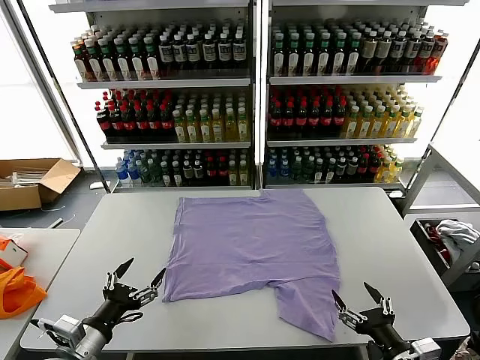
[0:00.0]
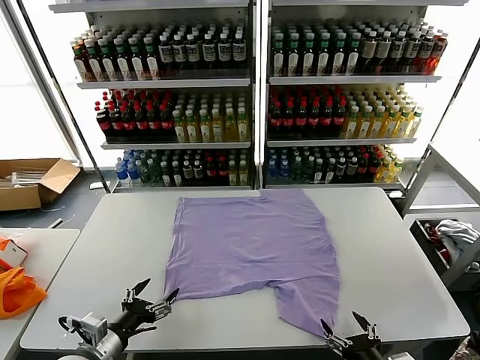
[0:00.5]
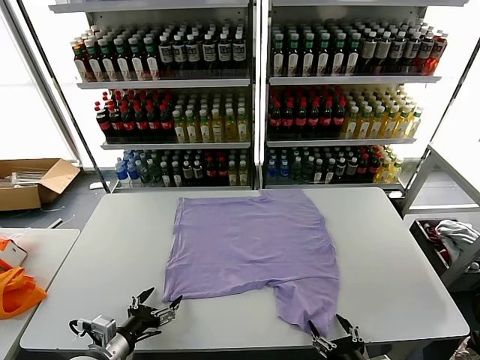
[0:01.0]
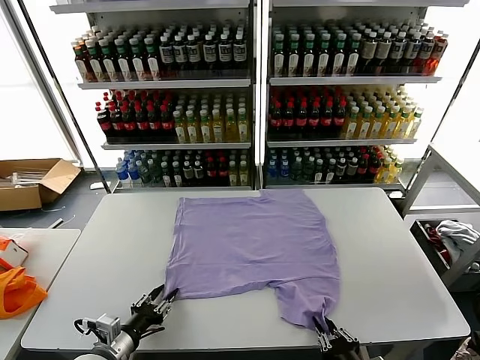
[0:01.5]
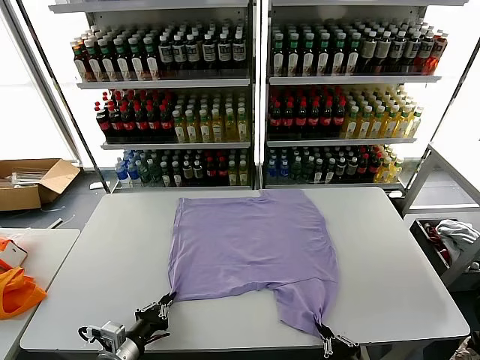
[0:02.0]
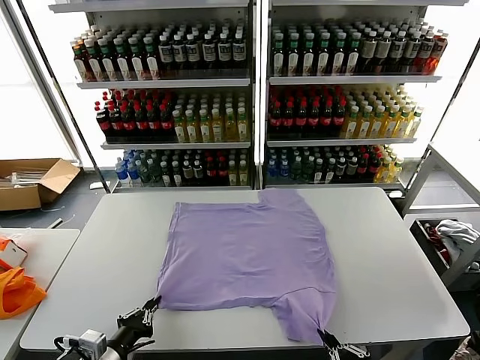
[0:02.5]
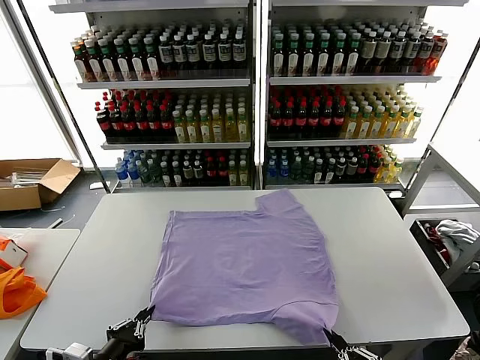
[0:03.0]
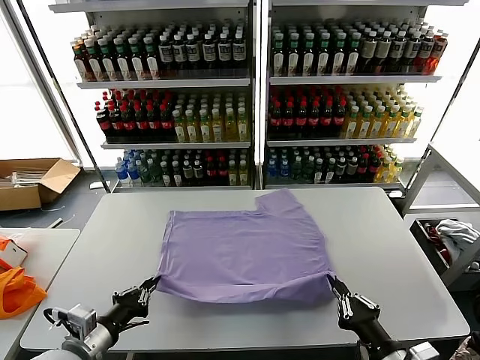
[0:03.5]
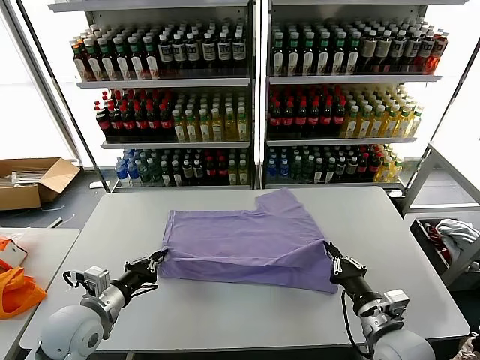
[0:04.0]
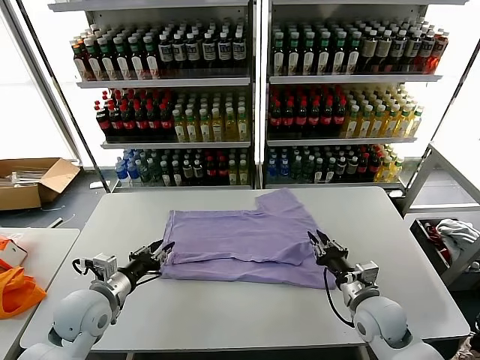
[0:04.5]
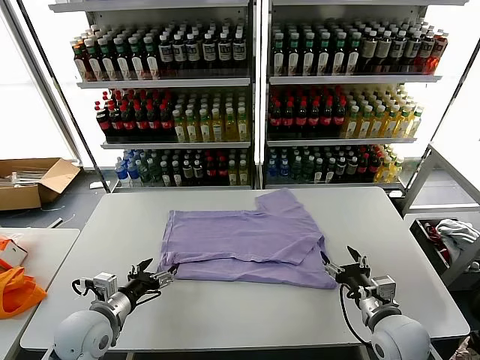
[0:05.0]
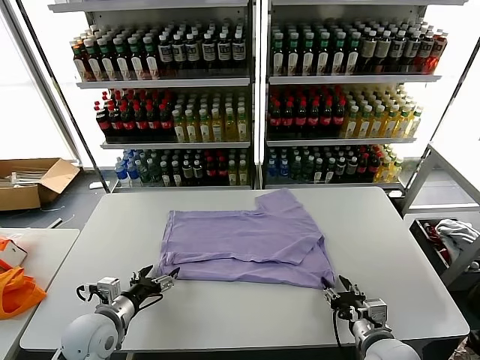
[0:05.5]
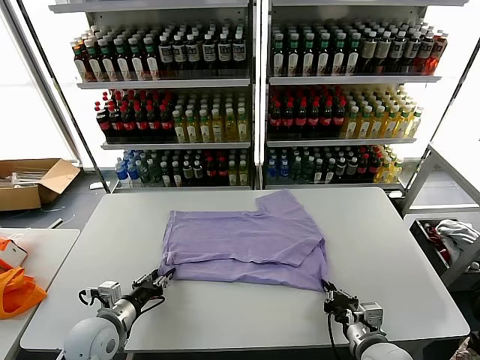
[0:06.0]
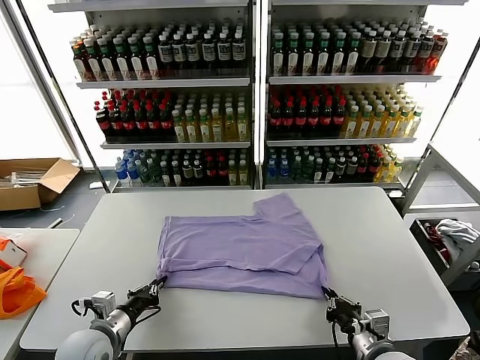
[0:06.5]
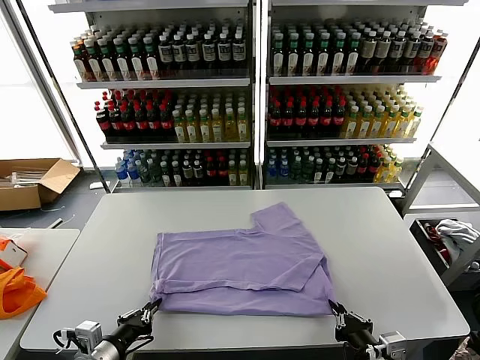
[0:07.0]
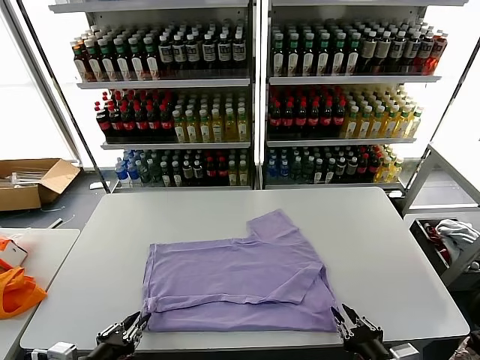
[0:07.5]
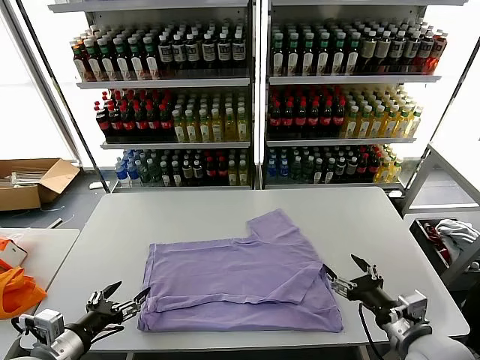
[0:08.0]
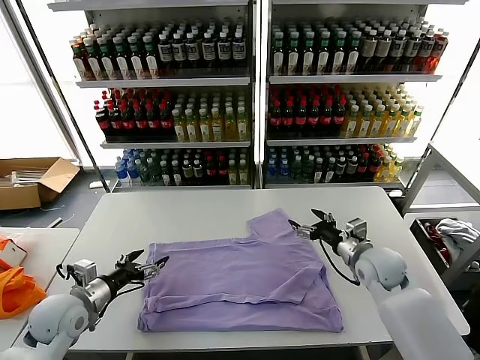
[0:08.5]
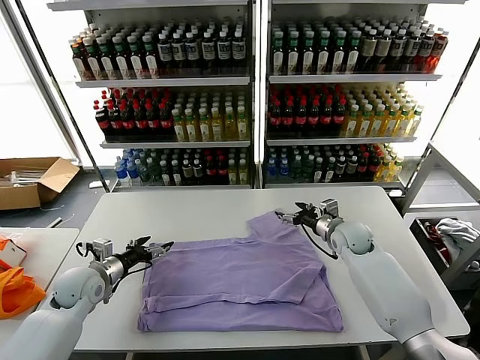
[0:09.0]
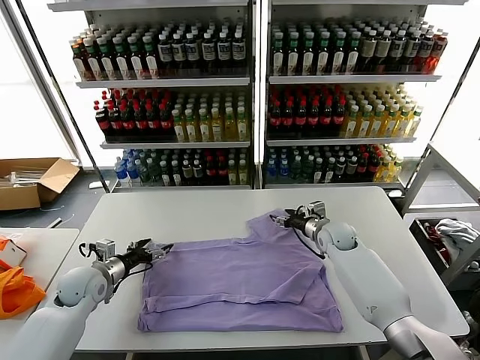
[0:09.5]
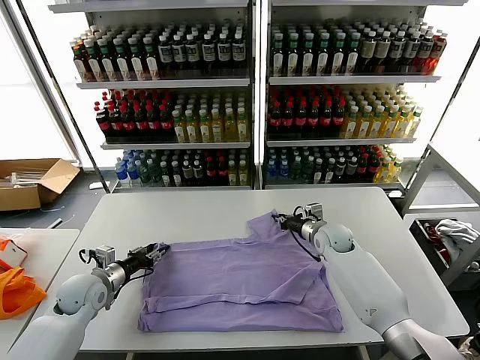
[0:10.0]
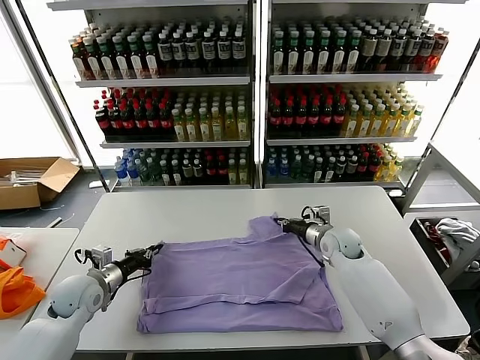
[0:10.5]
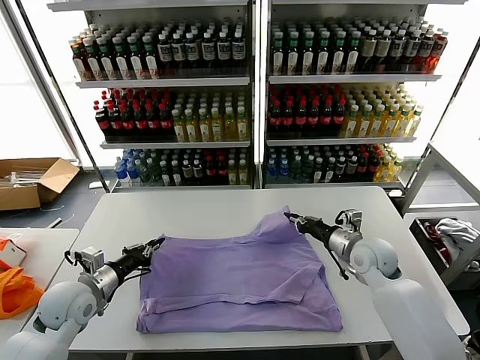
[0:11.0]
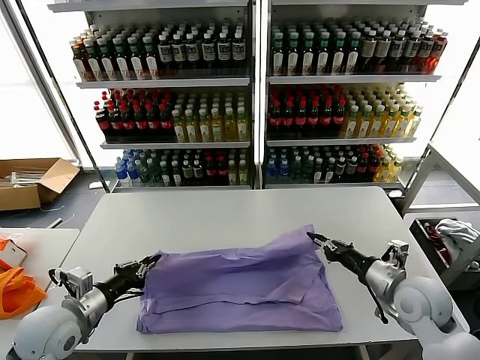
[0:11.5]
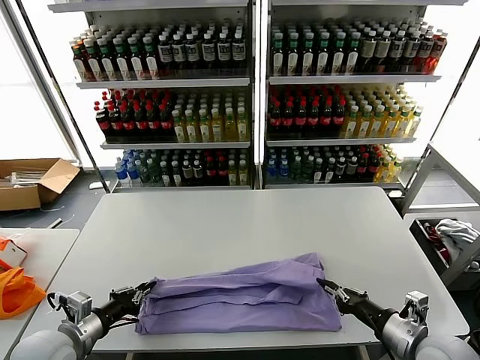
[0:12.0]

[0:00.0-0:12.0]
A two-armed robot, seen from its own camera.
Task of the whole recording: fold and organize the clothes.
Step, 0:00.0 to 0:02.0: use both grippers simultaneously to clamp the lower edge of the clothing fabric.
Step, 0:02.5 to 0:04.0: use both grippers to drag the lower edge of the fabric forward and fold it over the upper edge.
Step, 0:05.0 to 0:07.5: Drag the clothes downward with both gripper.
Step, 0:08.0 to 0:10.0: use both grippers simultaneously to clamp the upper edge of the clothing fabric.
0:02.0 to 0:04.0: The left gripper shifts about 10 cm upward and forward; the right gripper goes approximately 15 cm forward.
0:04.0 to 0:06.0: The left gripper travels downward by roughly 5 cm, and opens, then closes again. The right gripper opens, then closes once more.
0:06.0 to 0:08.0: The right gripper goes some 10 cm upward and to the right, travels backward and back again, roughly 10 cm each way, and opens up; the left gripper travels backward and upward by about 15 cm, and opens up.
0:08.0 to 0:10.0: The left gripper moves forward and downward, some 20 cm, and closes up, while the right gripper travels forward by approximately 30 cm, and closes up.
0:10.0 to 0:12.0: The left gripper moves backward, some 15 cm, and closes its fingers. The right gripper is displaced backward by some 30 cm.

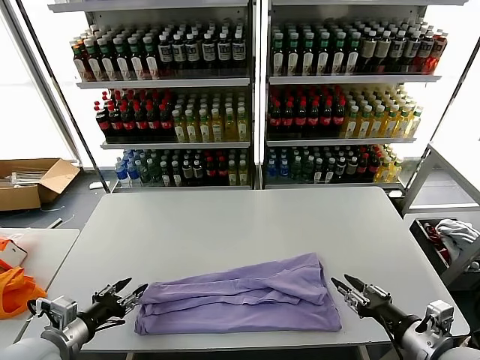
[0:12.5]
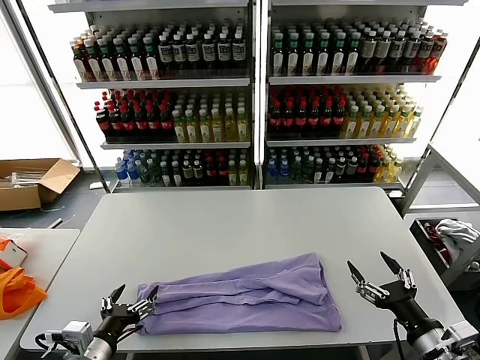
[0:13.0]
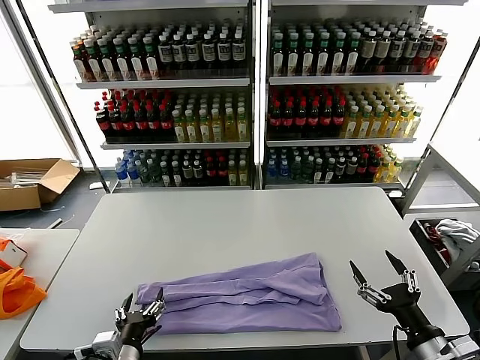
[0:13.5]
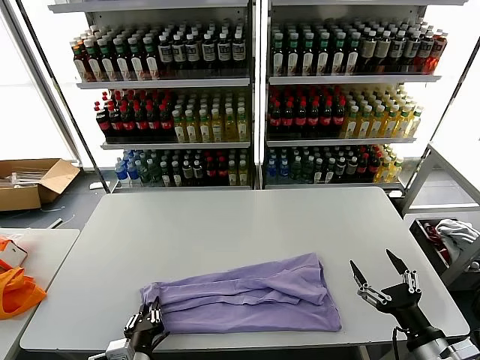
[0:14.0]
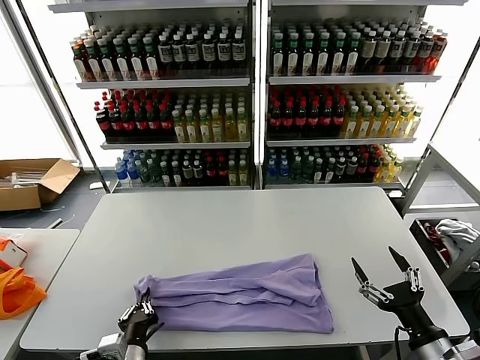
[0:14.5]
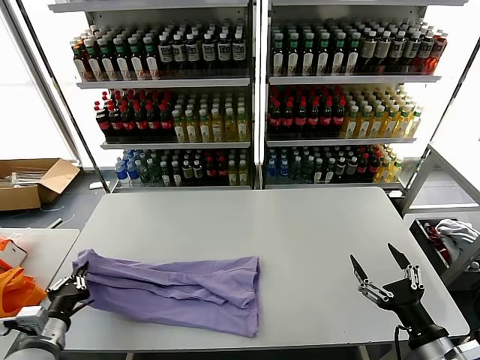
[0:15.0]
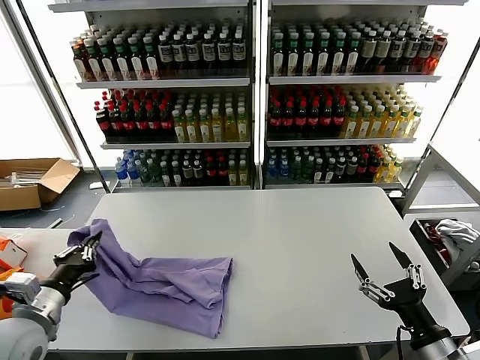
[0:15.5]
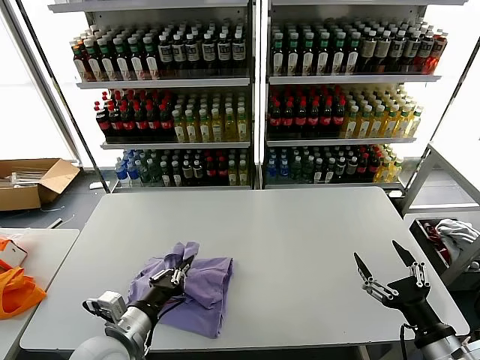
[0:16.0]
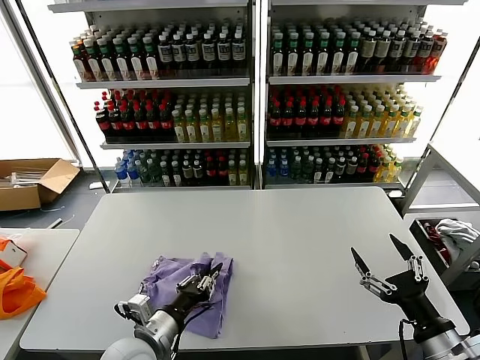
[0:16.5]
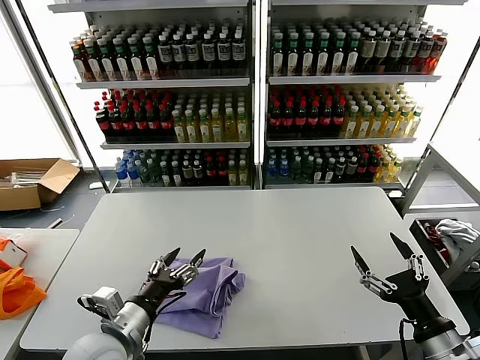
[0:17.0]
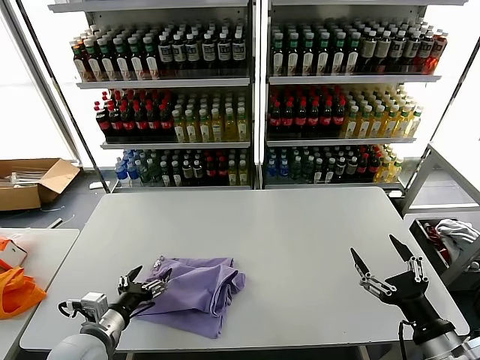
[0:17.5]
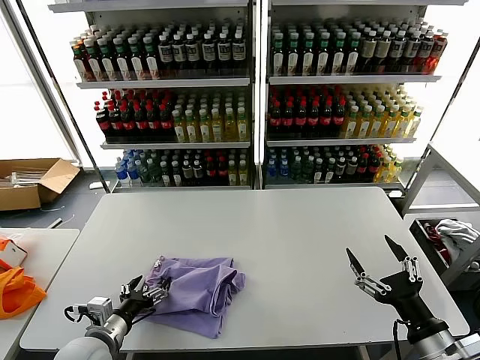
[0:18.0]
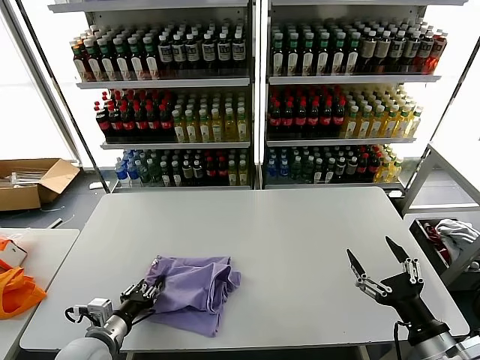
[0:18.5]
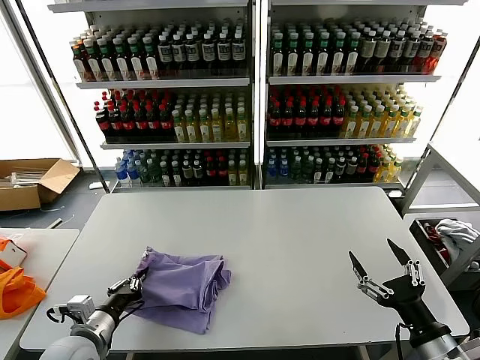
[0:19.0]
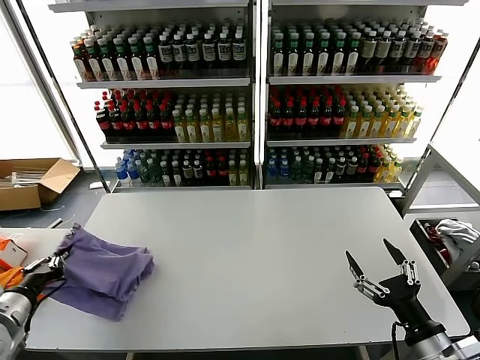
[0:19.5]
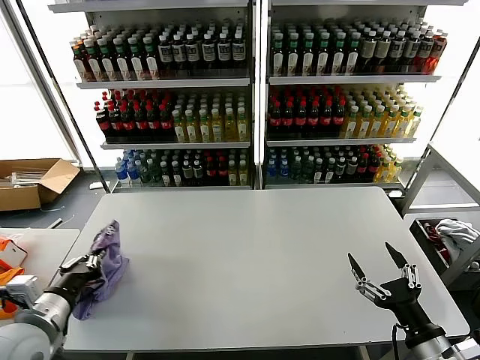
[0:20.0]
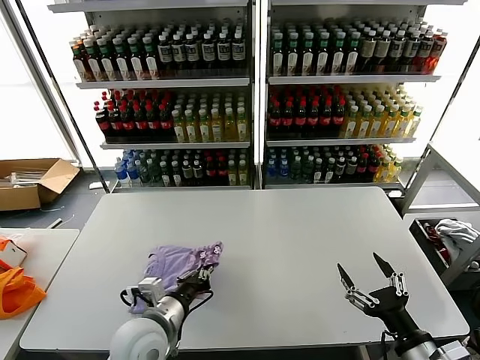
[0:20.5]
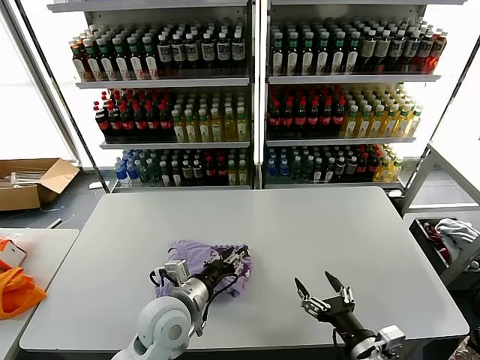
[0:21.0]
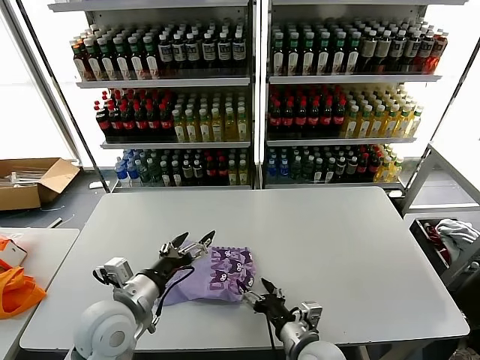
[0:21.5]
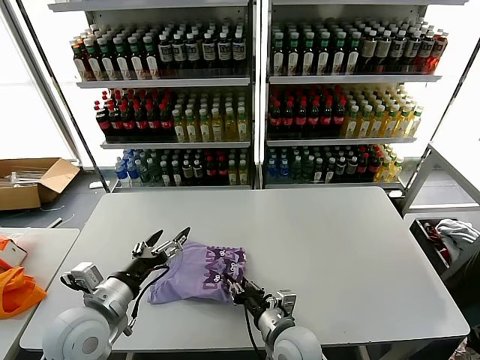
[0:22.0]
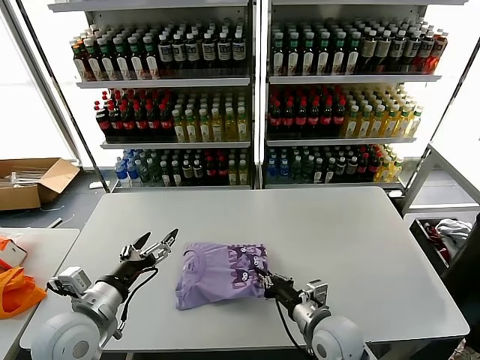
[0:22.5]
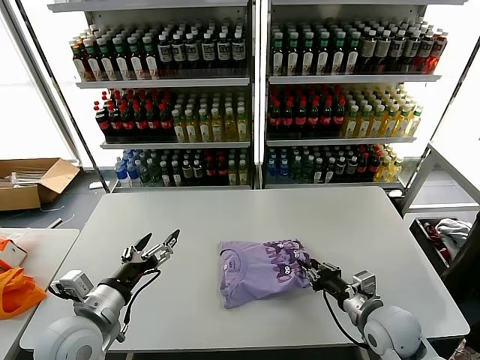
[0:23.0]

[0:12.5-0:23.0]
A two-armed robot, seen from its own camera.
Task of the whole recording: fold and organize the clothes.
Step, 0:12.5 to 0:14.0: use the left gripper to clamp the left edge of the fabric.
Step, 0:14.5 to 0:21.0: Flip the folded clothes over with left gripper.
0:12.5 to 0:14.5: The left gripper shifts roughly 15 cm to the right and downward, and closes. The right gripper opens its fingers.
0:14.5 to 0:16.5: The left gripper moves forward and upward, roughly 10 cm, and goes to the left and returns, approximately 20 cm each way.
0:16.5 to 0:19.0: The left gripper is displaced to the left by about 10 cm, and opens and closes again.
0:19.0 to 0:21.0: The right gripper shifts roughly 10 cm to the left and downward; the left gripper travels to the right by approximately 20 cm, and opens up.
0:21.0 to 0:23.0: The right gripper shifts roughly 10 cm forward, reaches some 15 cm to the left, then returns, and closes its fingers, while the left gripper goes roughly 15 cm to the left, and opens up.

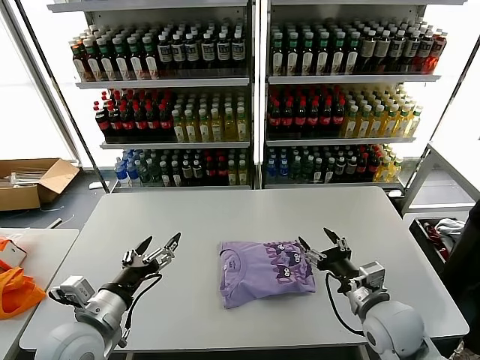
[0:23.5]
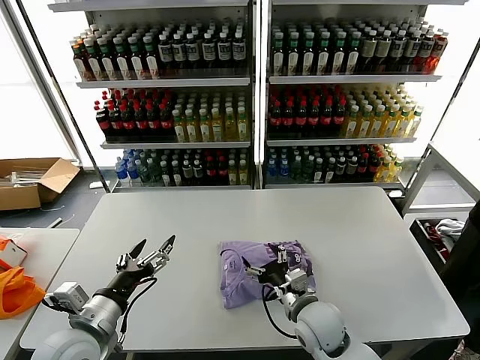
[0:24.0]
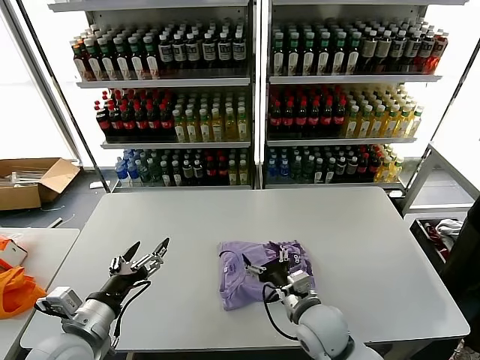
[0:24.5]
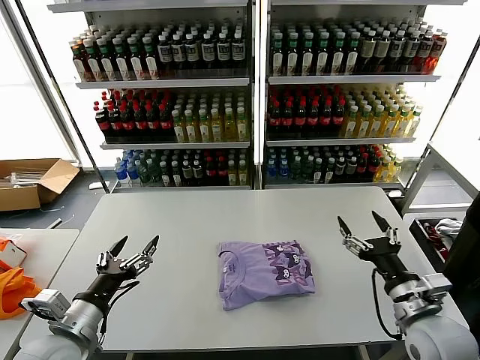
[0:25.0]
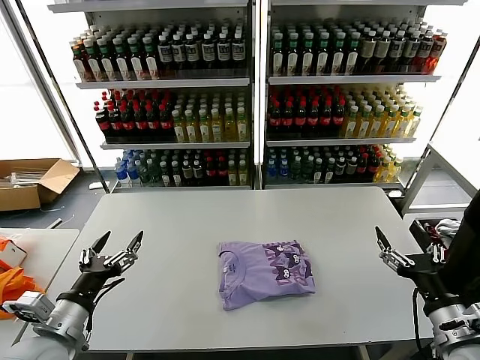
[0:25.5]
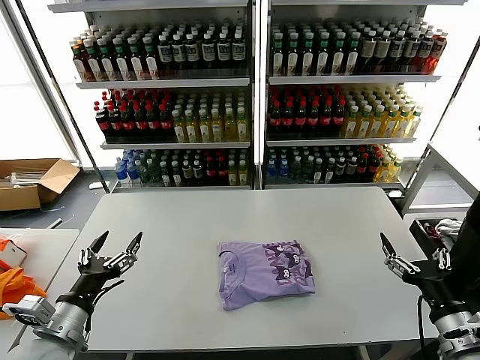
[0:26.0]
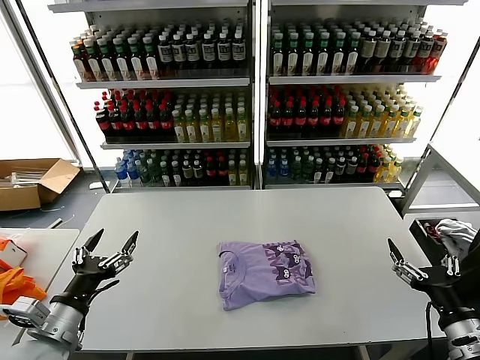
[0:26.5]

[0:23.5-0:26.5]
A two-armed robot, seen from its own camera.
Task of the whole recording: fold and organize the clothes.
0:23.5 to 0:25.0: The right gripper moves about 15 cm to the left and comes back.
0:25.0 to 0:26.5: The right gripper moves backward and to the right, roughly 10 cm.
